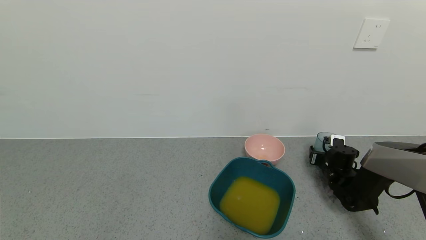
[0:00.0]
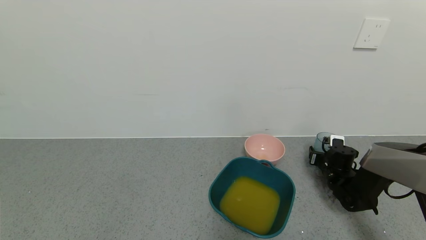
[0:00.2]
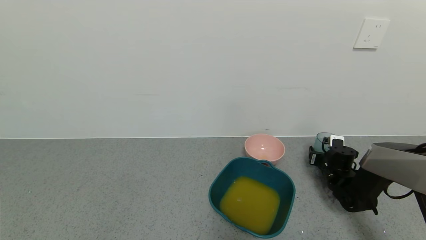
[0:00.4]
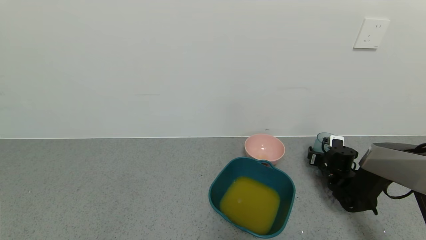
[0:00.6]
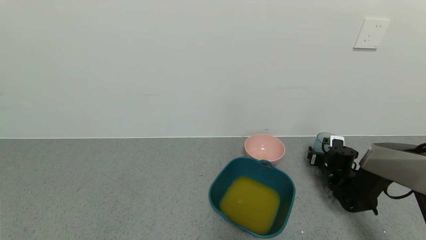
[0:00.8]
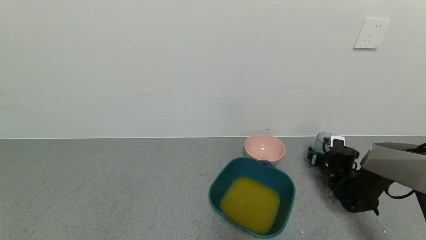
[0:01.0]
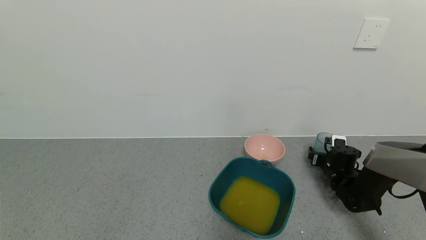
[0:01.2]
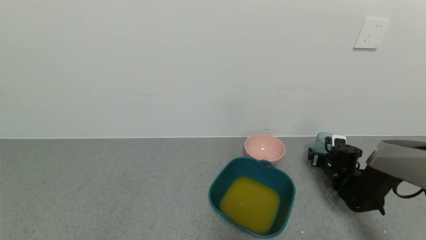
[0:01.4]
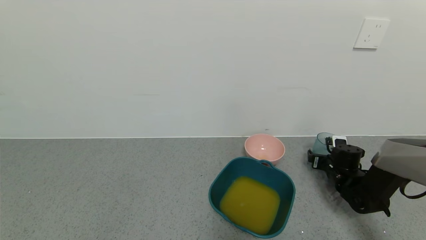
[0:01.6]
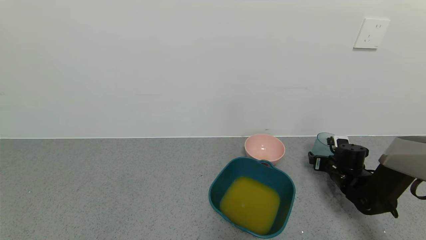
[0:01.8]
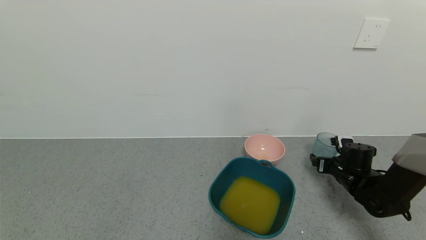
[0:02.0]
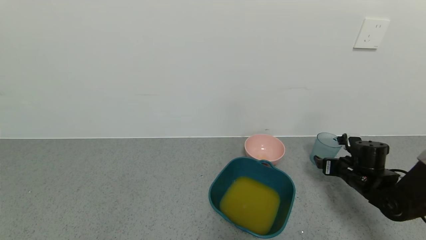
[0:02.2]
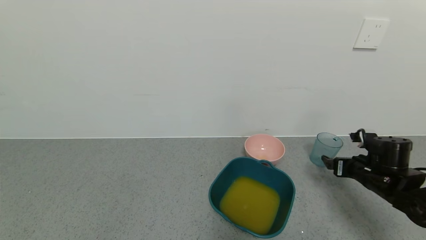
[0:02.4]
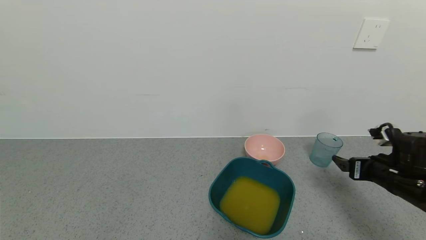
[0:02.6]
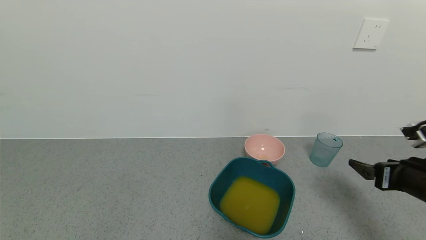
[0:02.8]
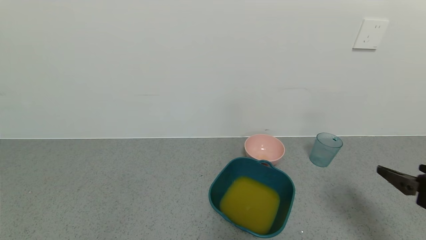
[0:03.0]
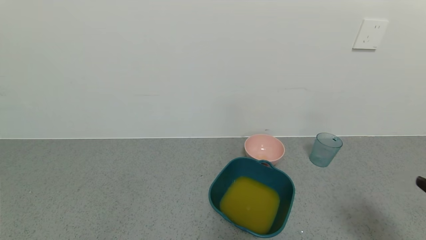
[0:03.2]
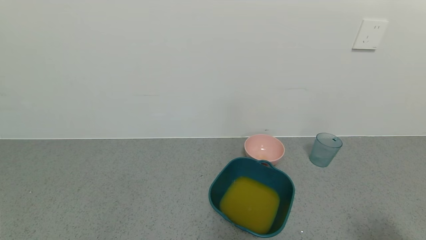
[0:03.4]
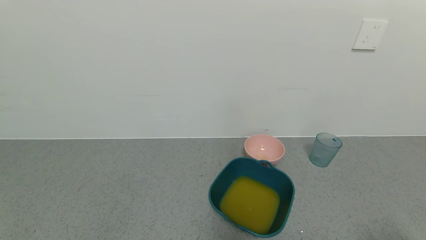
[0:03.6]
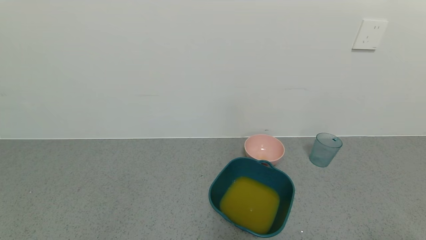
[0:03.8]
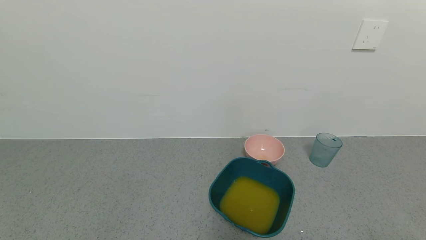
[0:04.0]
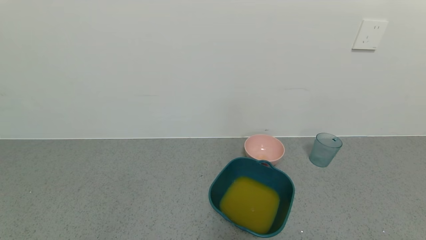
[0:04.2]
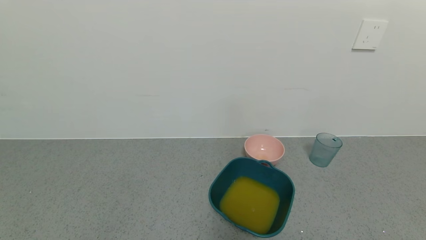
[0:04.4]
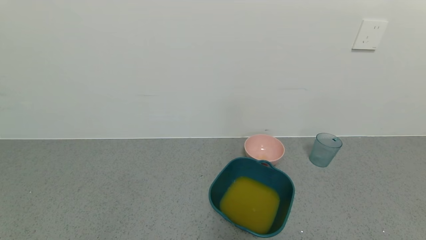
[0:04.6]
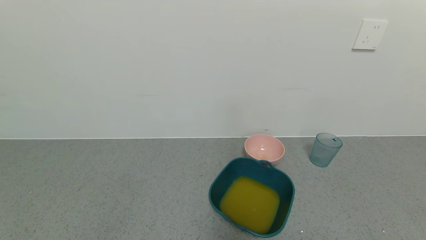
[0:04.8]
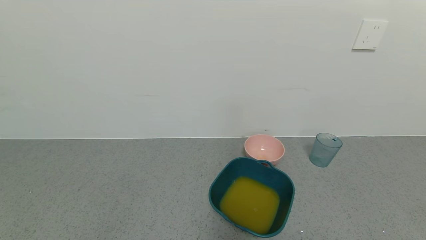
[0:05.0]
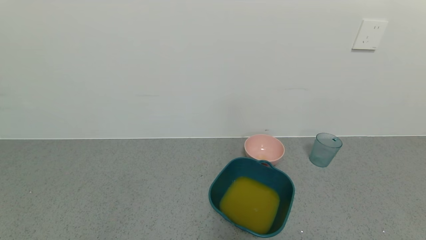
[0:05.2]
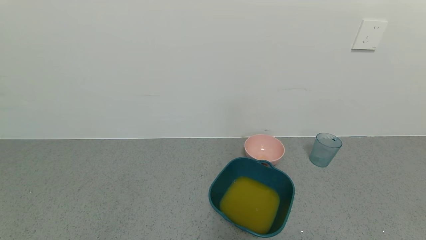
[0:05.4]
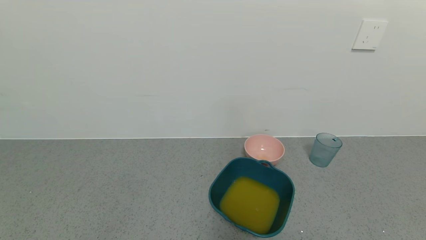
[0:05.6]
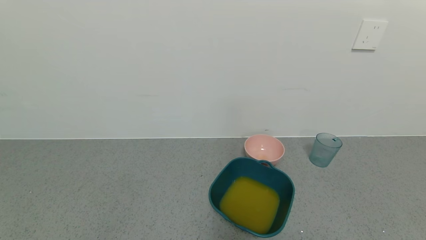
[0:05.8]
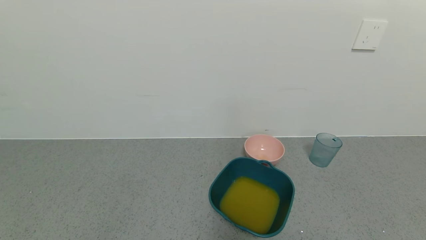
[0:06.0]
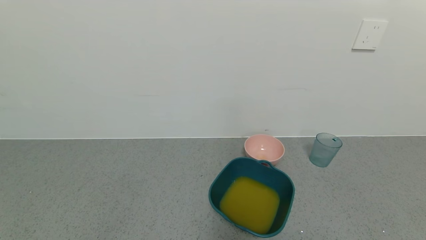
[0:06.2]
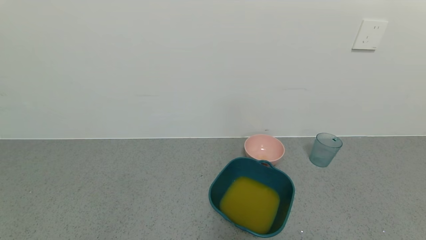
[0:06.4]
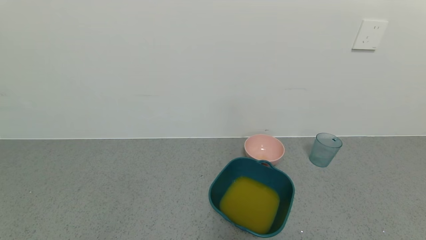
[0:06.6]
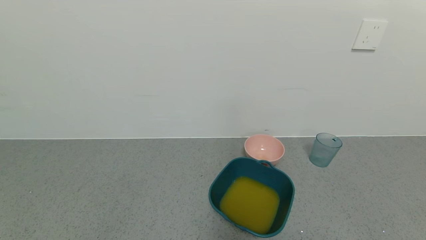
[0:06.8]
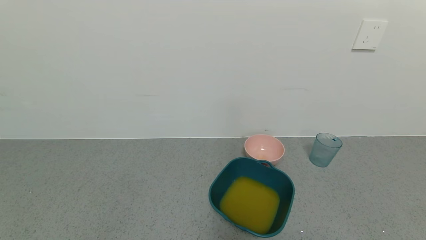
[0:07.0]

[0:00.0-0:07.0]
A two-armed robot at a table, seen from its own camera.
Task of the whole recording: use a gripper to pick up the cup and pour the liquid into a bowl or tray.
0:00.0 to 0:01.4: The right gripper opens its fingers.
0:01.4 to 0:02.8: The right gripper moves backward and upward, approximately 25 cm.
0:02.8 to 0:04.2: The right gripper goes roughly 25 cm backward.
